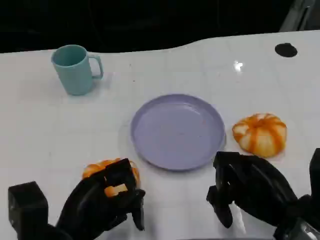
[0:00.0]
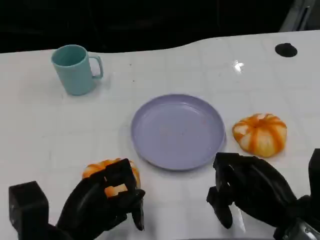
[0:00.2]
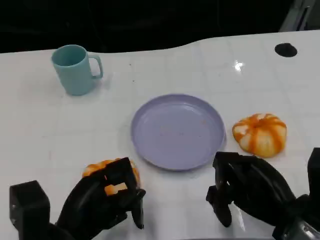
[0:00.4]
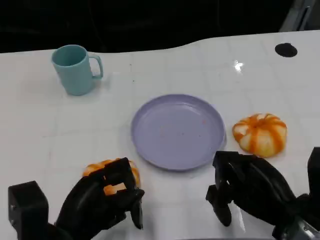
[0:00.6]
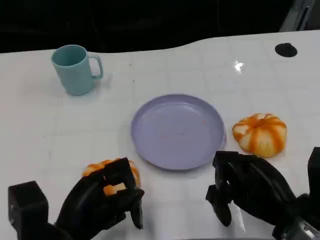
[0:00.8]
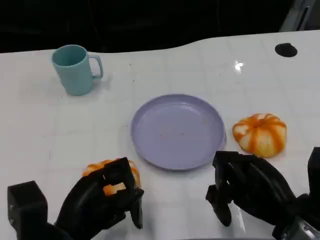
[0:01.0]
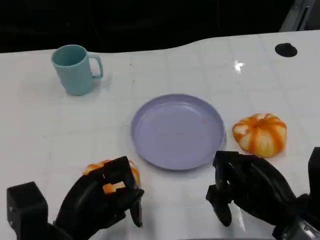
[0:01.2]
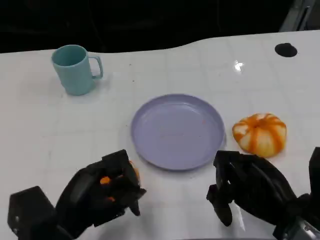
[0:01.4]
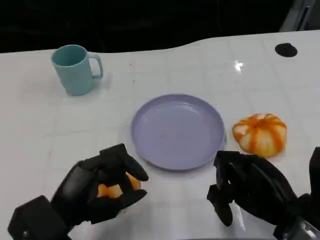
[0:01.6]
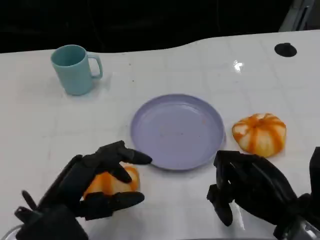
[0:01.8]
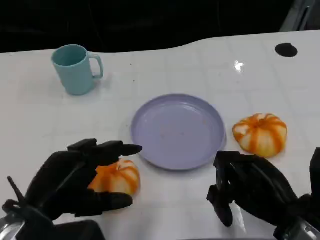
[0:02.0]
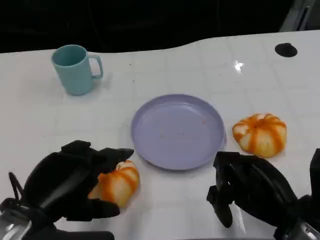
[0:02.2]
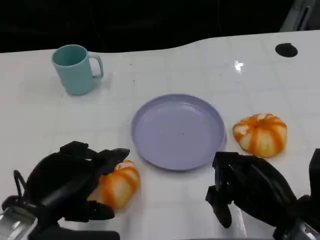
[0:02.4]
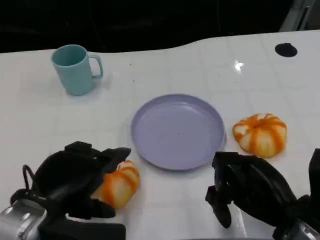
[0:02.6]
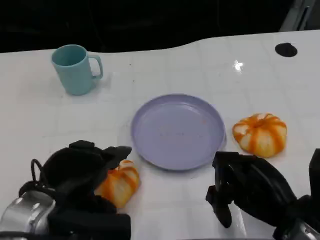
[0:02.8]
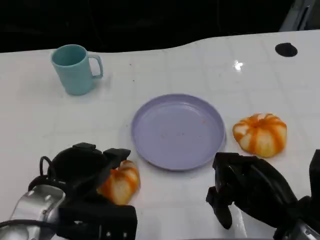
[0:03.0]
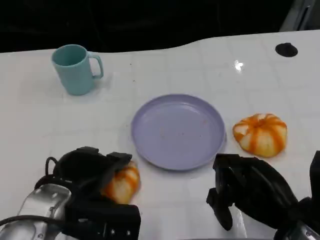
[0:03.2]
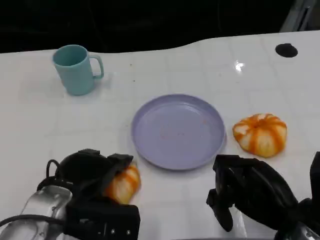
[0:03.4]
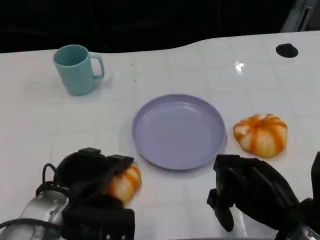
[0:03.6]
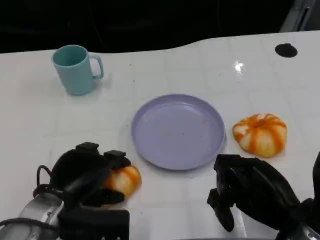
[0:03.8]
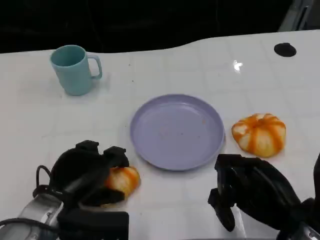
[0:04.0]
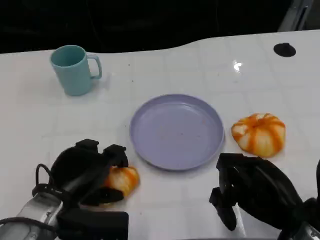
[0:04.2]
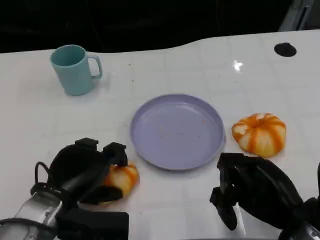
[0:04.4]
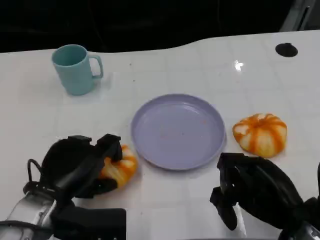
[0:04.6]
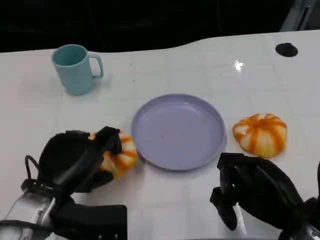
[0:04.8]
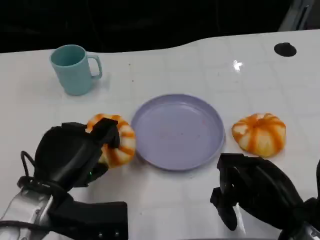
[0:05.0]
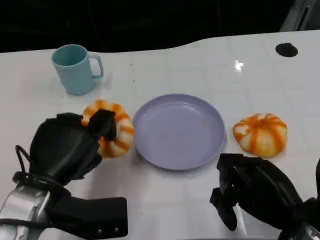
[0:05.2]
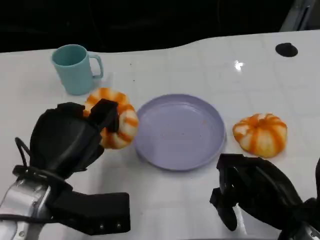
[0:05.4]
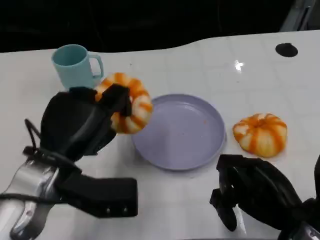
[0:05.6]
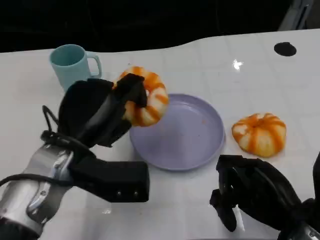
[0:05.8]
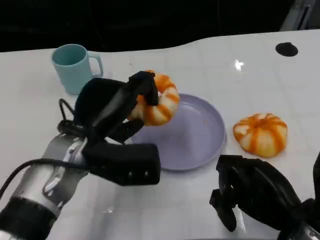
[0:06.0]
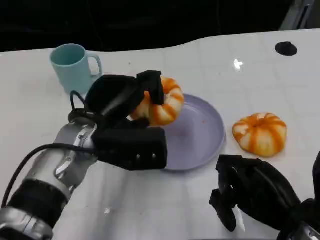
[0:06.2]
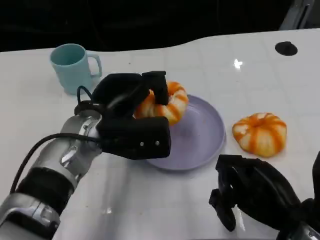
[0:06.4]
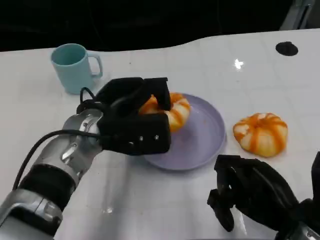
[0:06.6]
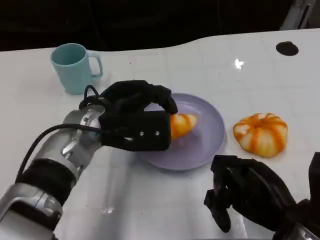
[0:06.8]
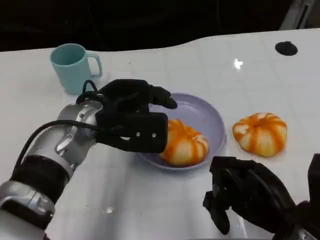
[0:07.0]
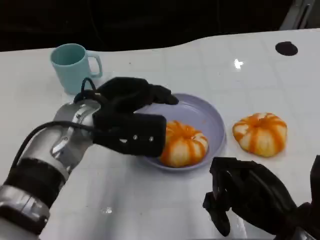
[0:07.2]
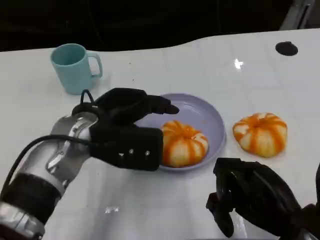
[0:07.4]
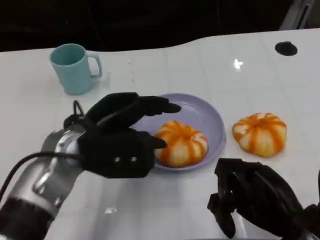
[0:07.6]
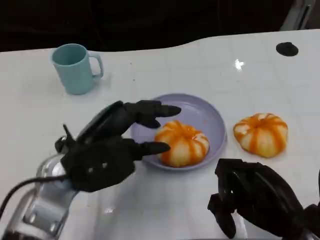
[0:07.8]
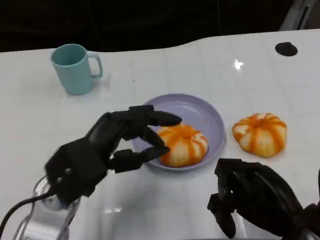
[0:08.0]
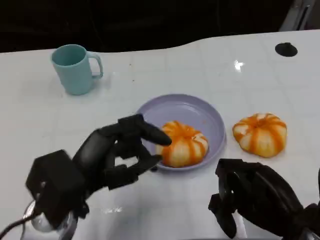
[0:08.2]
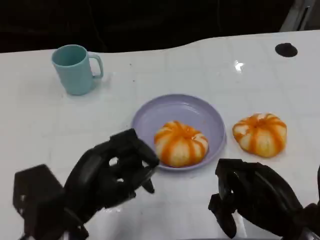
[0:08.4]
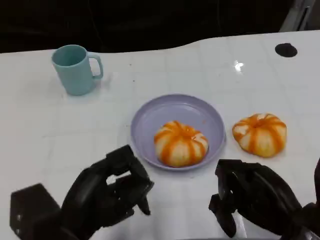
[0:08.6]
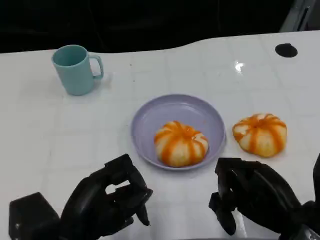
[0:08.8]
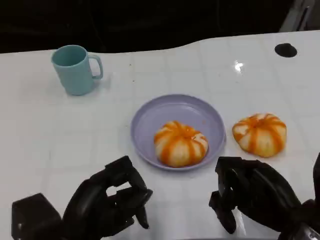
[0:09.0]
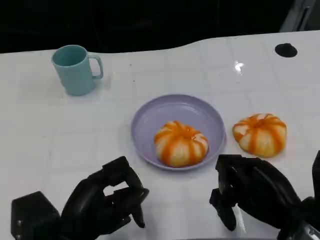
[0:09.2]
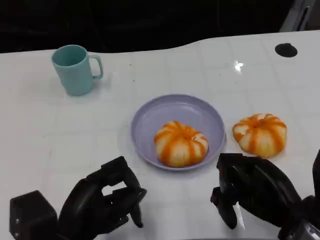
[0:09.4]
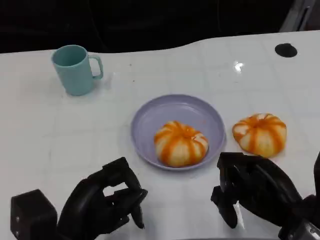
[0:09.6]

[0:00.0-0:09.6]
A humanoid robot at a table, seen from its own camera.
Task of the whole recording: Grasp the bread from the table and place it into the plate.
0:01.6 to 0:03.2: The left hand moves roughly 5 cm.
0:04.8 to 0:06.4: The left hand moves forward and to the right, about 10 cm.
0:06.4 to 0:08.0: The left hand goes some 10 cm backward.
0:08.0 to 0:09.6: The left hand shifts about 10 cm backward and downward.

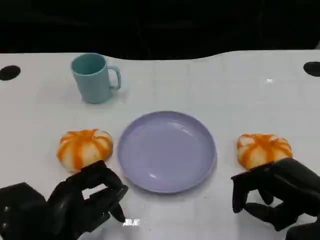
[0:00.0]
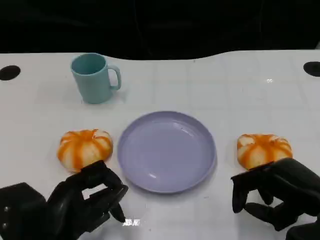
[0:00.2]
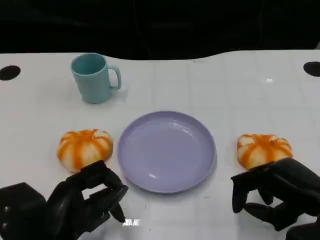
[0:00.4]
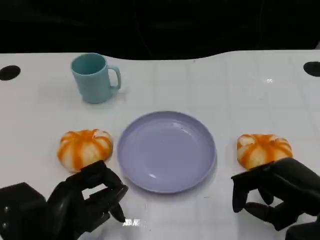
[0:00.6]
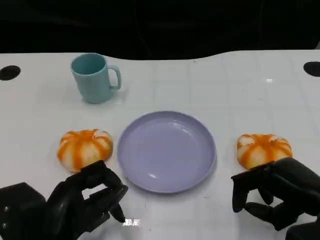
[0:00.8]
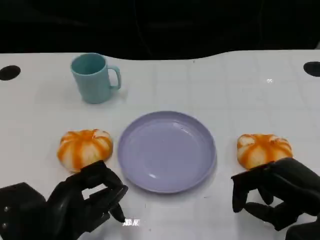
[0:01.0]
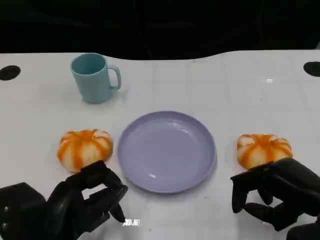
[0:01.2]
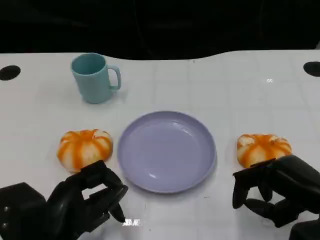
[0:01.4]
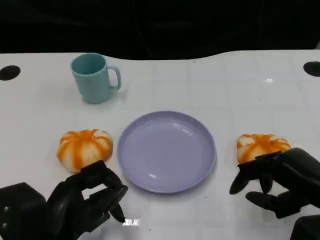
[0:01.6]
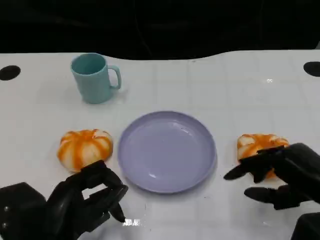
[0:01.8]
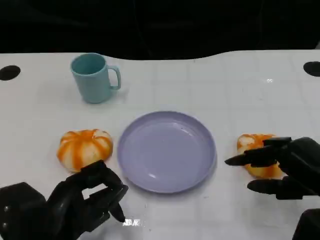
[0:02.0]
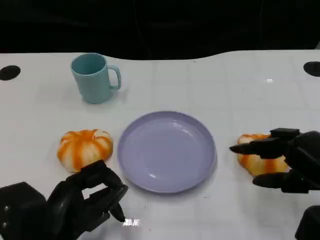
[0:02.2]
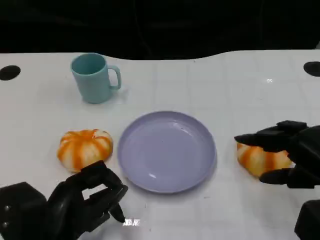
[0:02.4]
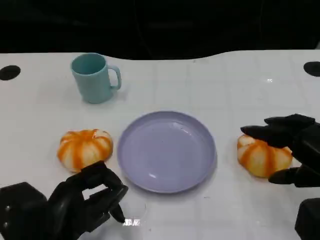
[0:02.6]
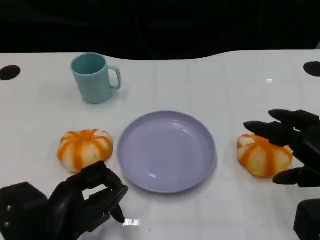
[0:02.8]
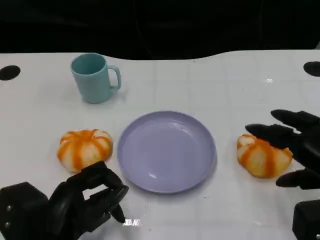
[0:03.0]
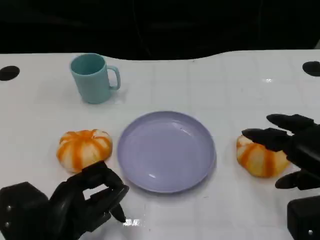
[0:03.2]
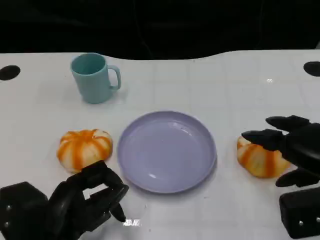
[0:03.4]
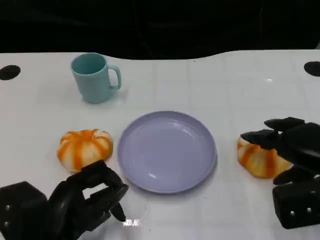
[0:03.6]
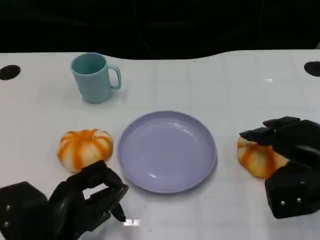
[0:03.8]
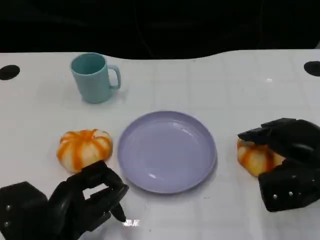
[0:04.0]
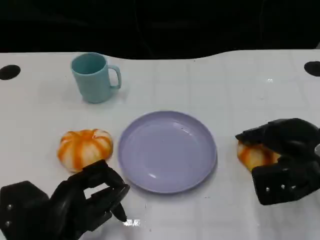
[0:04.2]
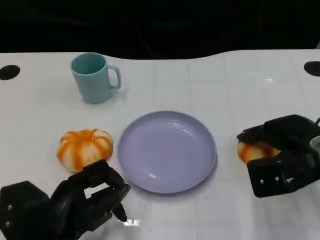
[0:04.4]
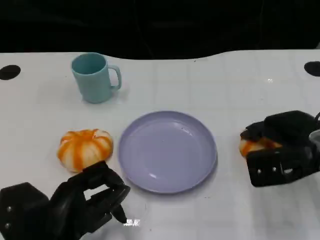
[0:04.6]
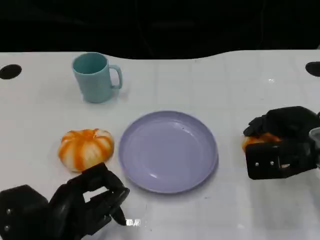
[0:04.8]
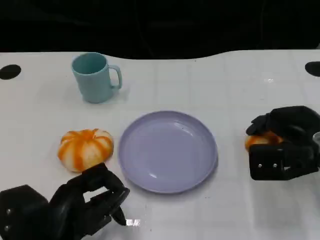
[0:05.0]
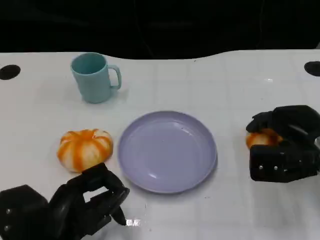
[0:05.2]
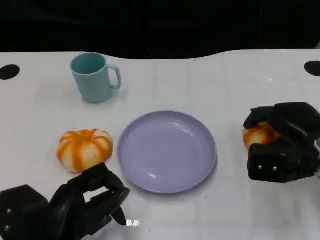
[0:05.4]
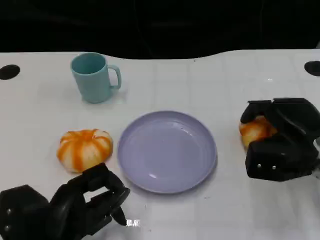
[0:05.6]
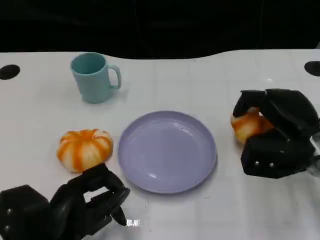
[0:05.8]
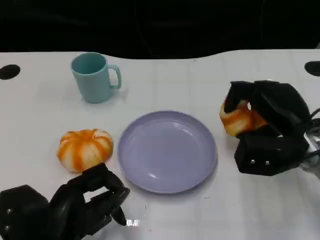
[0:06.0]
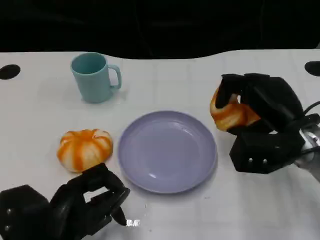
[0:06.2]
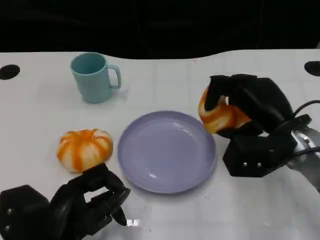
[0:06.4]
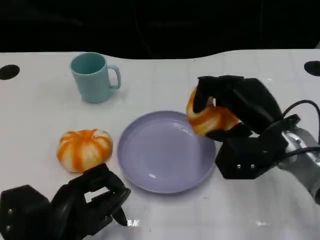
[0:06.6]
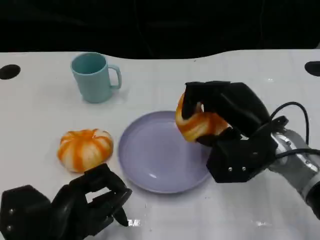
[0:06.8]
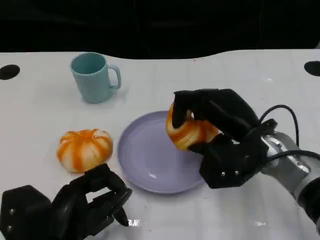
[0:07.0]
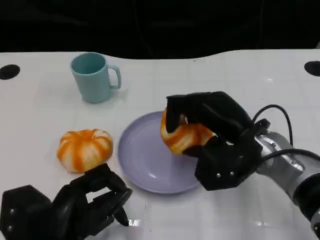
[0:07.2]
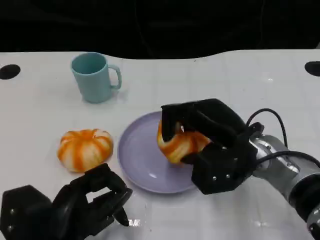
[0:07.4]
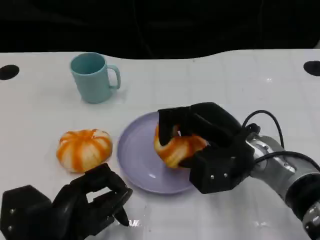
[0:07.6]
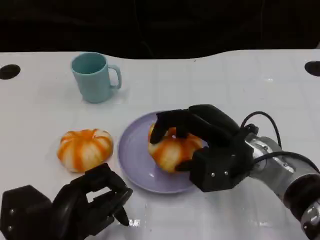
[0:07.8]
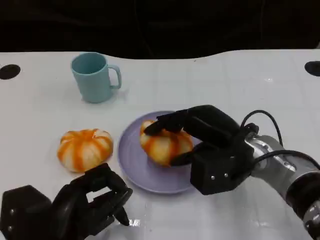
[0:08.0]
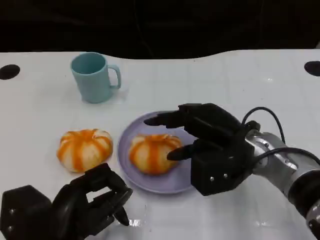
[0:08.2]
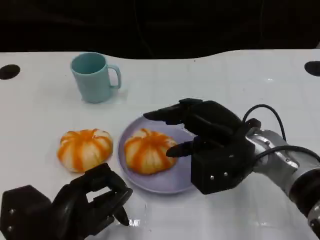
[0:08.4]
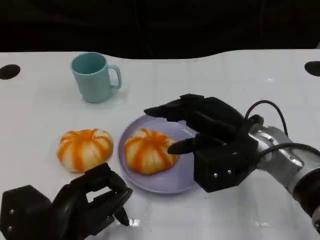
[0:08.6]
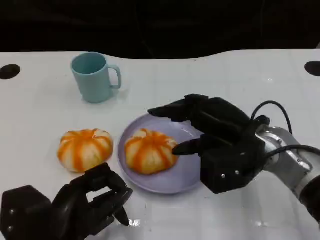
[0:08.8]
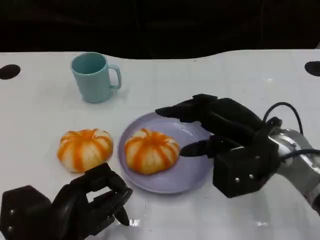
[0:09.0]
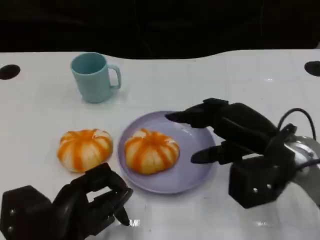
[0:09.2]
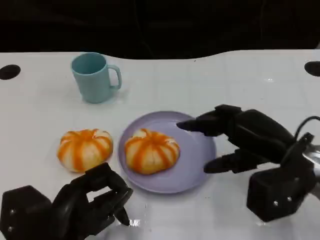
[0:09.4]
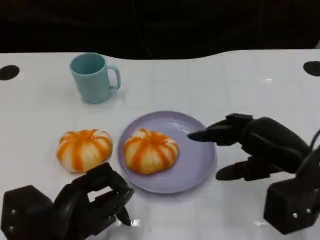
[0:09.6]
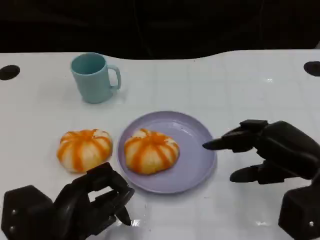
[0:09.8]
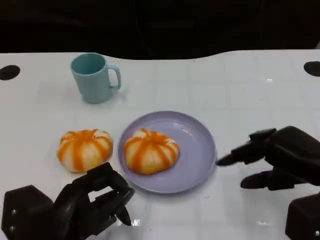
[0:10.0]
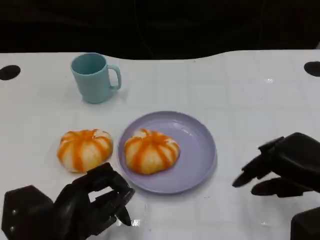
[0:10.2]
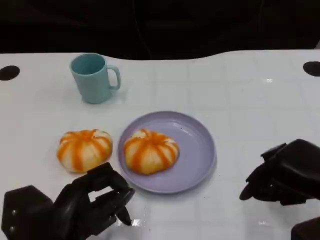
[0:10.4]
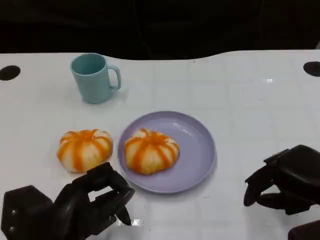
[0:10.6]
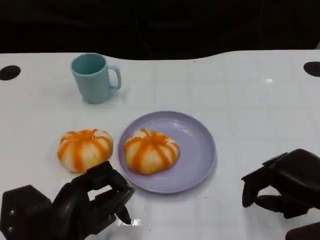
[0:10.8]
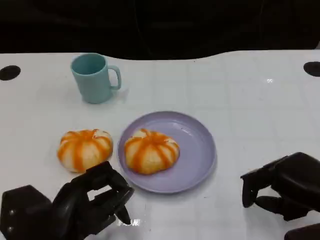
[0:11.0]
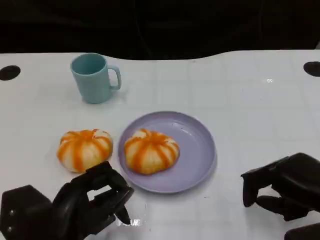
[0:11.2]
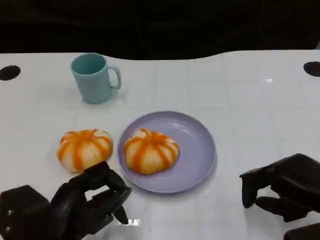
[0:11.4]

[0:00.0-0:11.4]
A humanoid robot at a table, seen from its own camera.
Task of the whole recording: Grasp the bread from the table and place it into the plate.
0:00.0 to 0:01.4: Both hands stay about where they are.
0:01.4 to 0:02.8: The right hand ends up approximately 5 cm from where it was.
0:02.8 to 0:04.2: The right hand heads forward, covering approximately 10 cm.
0:05.6 to 0:07.2: The right hand is displaced to the left by approximately 10 cm.
0:07.2 to 0:08.6: The hands move only a little.
0:08.6 to 0:10.0: The right hand goes about 15 cm to the right and backward.
0:10.0 to 0:11.4: There are only small adjustments of the hands.

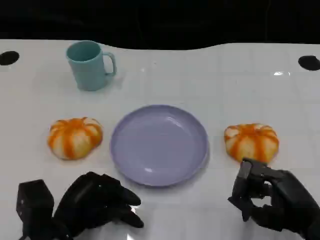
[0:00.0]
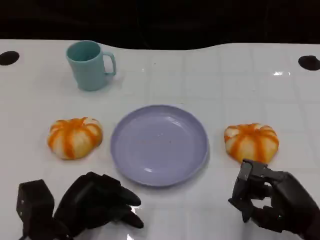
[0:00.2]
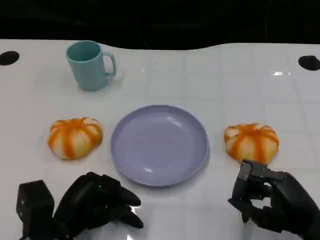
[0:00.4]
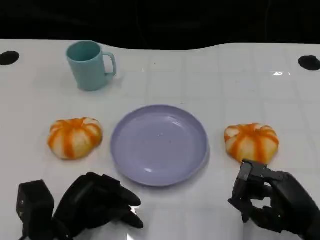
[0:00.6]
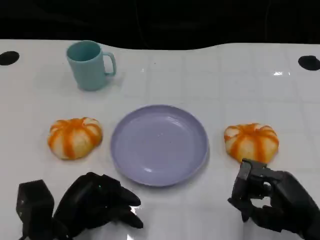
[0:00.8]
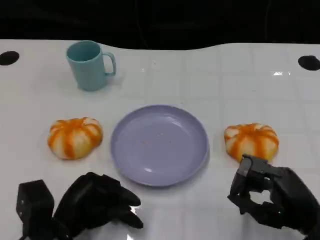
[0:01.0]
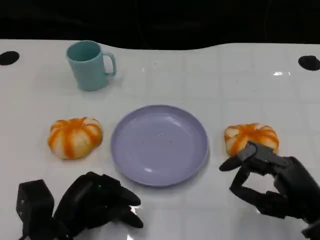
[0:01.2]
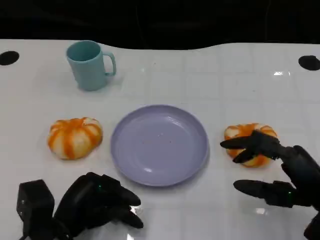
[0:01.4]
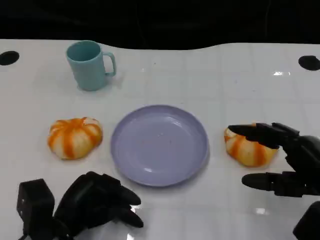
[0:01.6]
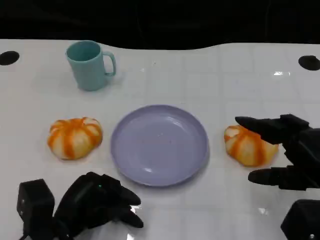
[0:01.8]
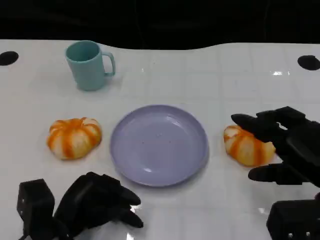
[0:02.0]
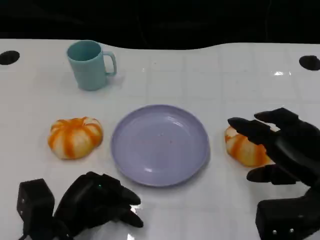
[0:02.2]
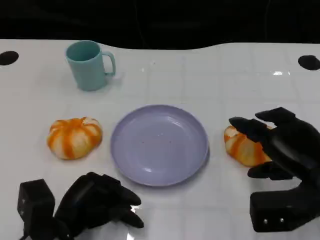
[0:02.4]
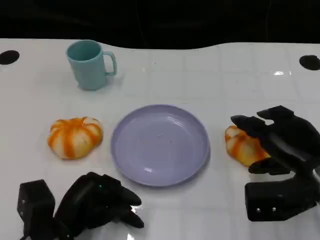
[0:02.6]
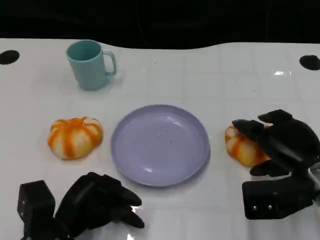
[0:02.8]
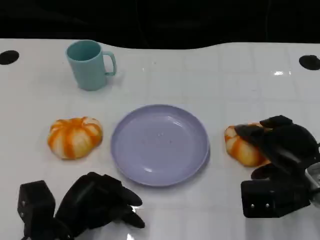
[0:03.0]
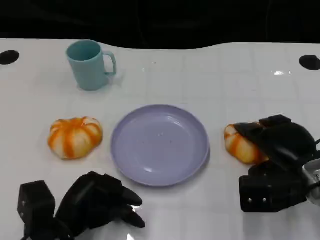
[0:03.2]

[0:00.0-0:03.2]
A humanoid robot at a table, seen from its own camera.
Task of the whole recording: Grasp the bread from the table and place it into the plate.
0:00.0 to 0:01.6: The right hand shifts by about 5 cm.
0:01.6 to 0:03.2: The right hand heads forward, covering some 5 cm.
